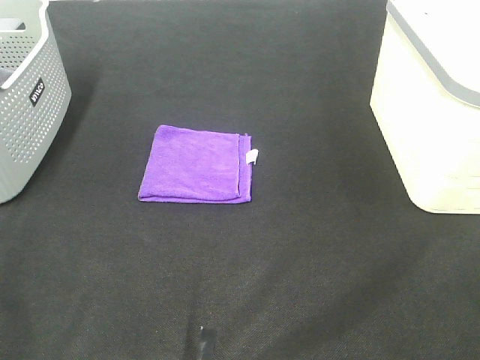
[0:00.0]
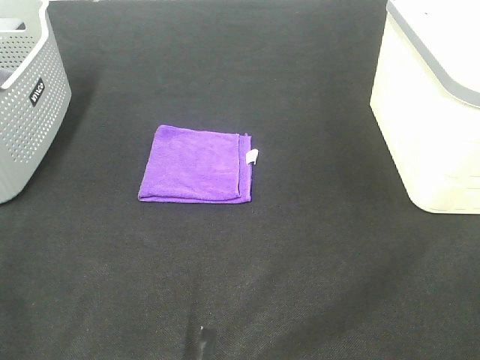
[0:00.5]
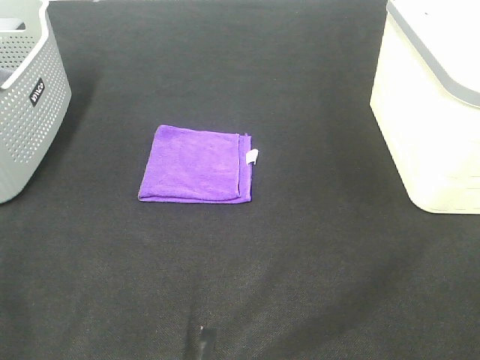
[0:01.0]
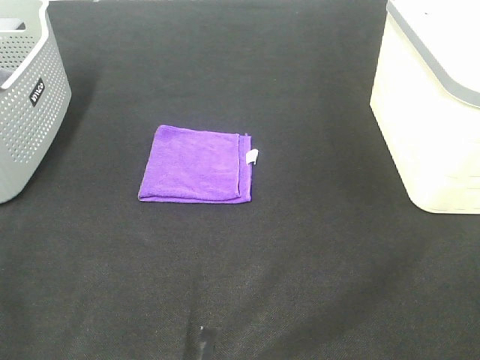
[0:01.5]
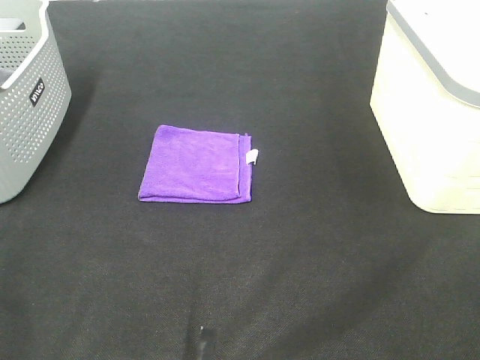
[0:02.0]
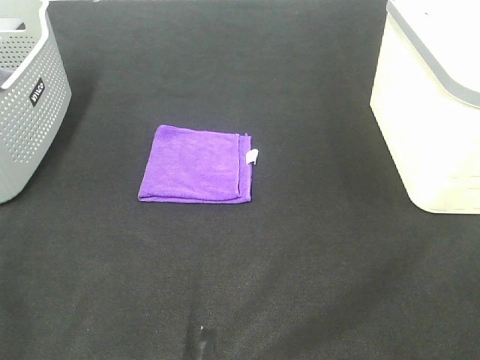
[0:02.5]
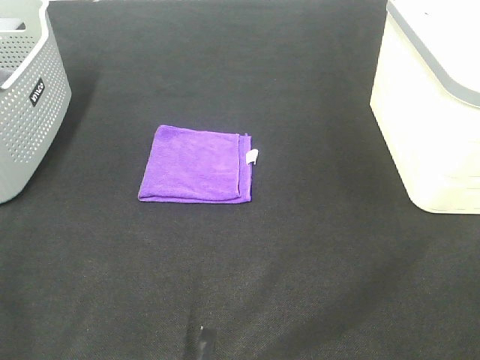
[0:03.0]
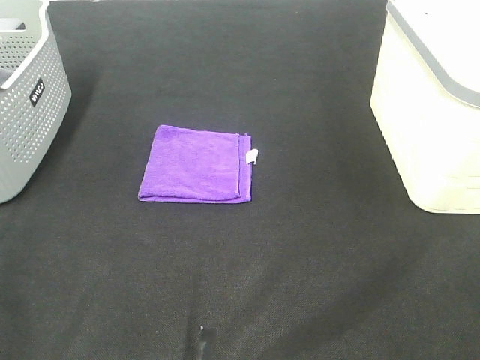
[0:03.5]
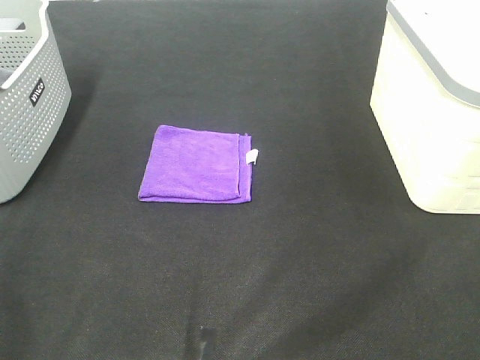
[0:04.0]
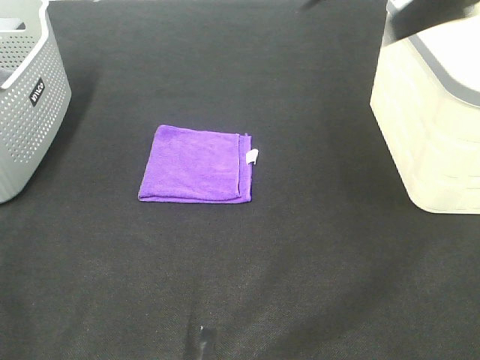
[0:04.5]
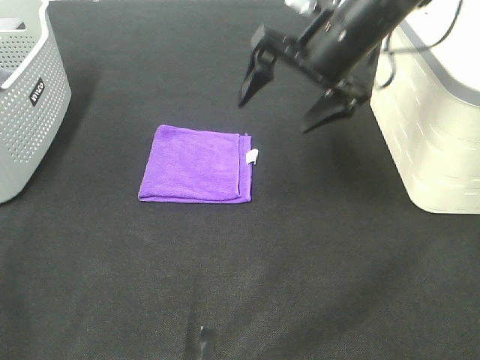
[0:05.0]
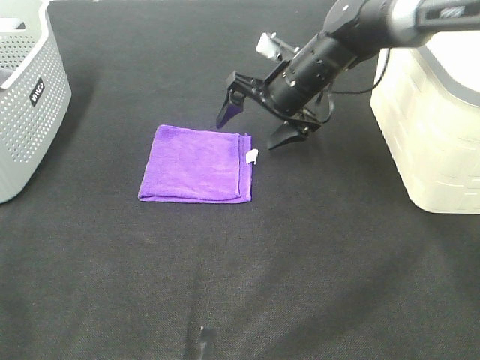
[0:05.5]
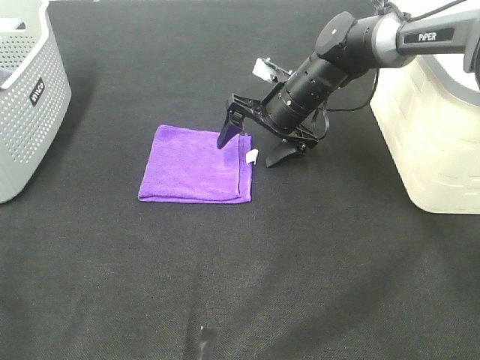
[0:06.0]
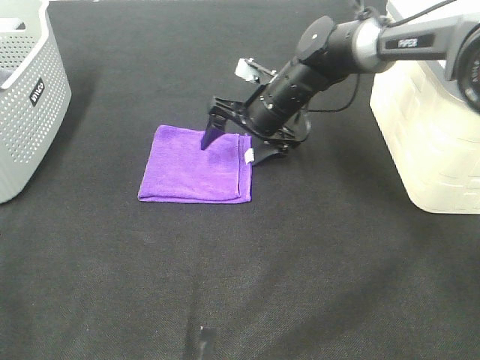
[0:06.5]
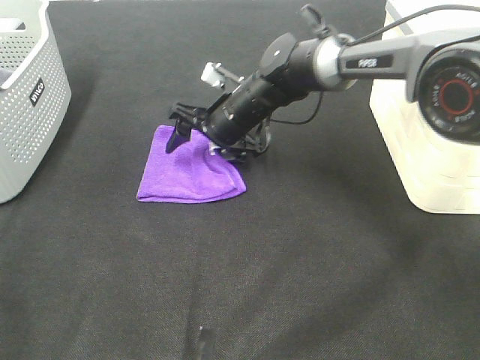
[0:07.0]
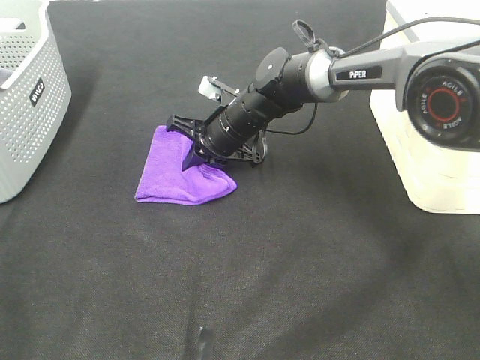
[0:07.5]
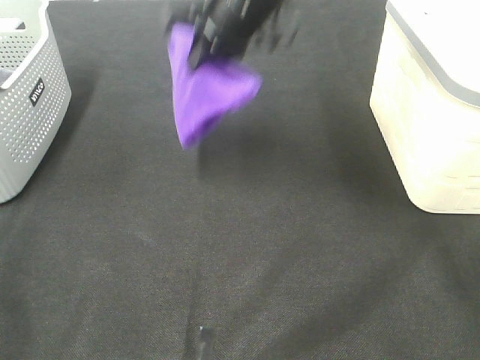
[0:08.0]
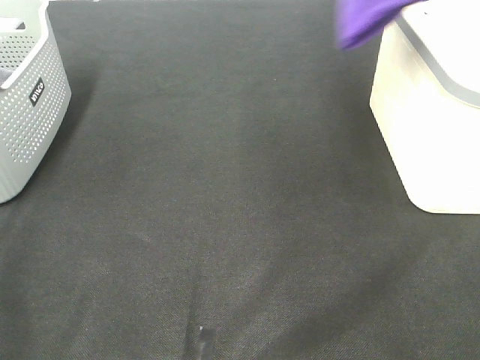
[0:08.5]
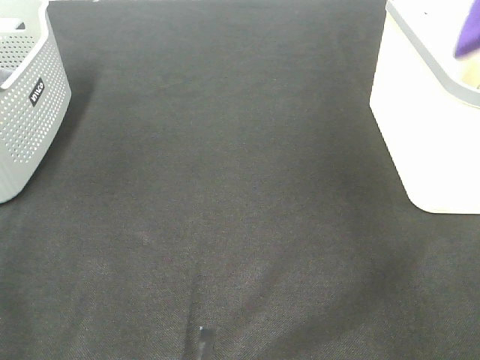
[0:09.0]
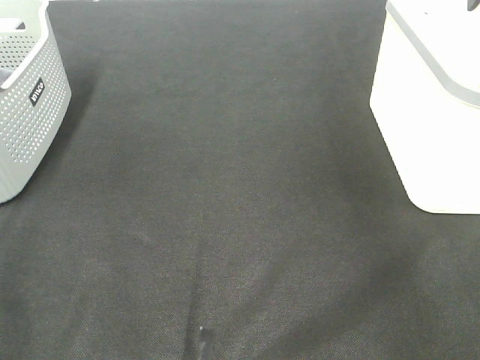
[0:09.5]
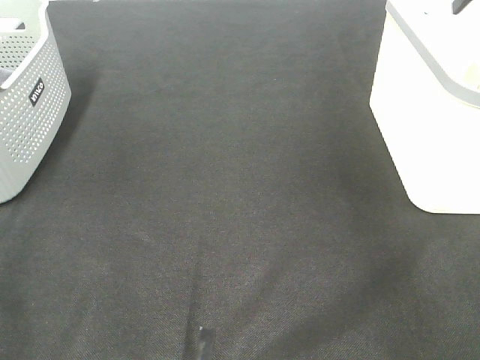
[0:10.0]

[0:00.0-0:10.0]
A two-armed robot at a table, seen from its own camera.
Step, 0.0 to 7.0 s: Right hand: grab the folded purple towel.
Step, 7.5 to 9.5 s: Right hand: place the purple towel in right basket.
0.0 to 2.0 s: Neither gripper changes place.
4.0 to 6.0 s: The right gripper is displaced forward, downward and to the left by approximately 50 cm.
6.0 to 8.0 s: The right gripper heads upward, covering some 20 cm, and closes up.
8.0 to 10.0 s: The right gripper is displaced to the right by about 30 cm, and opens up.

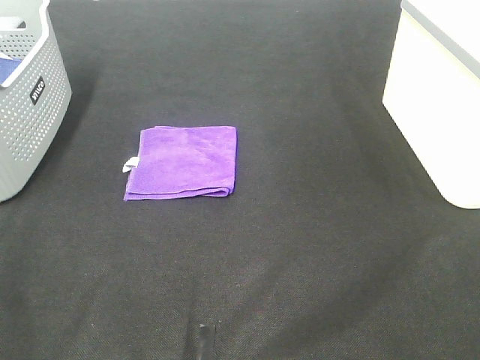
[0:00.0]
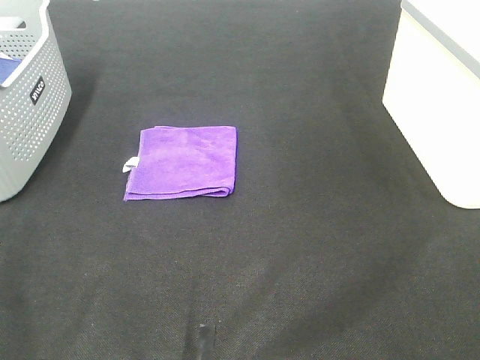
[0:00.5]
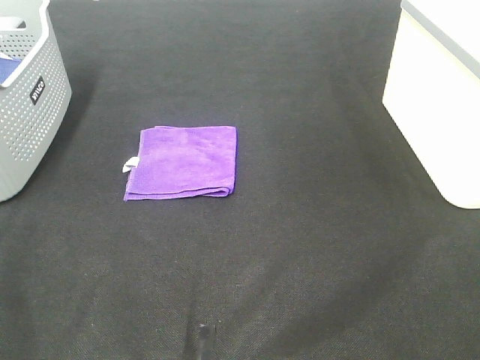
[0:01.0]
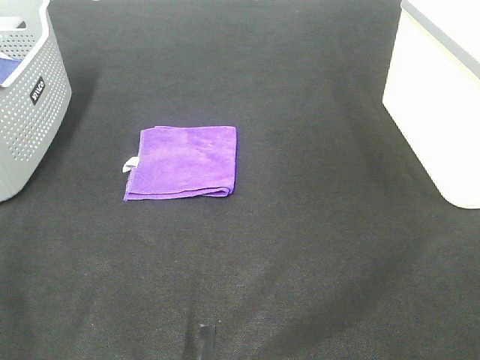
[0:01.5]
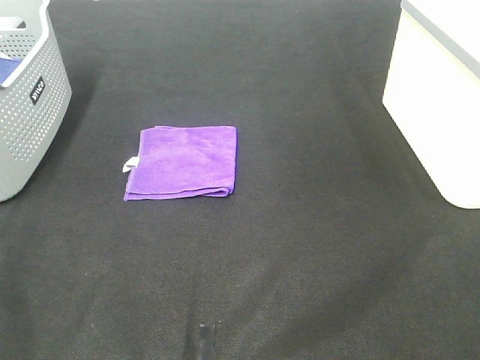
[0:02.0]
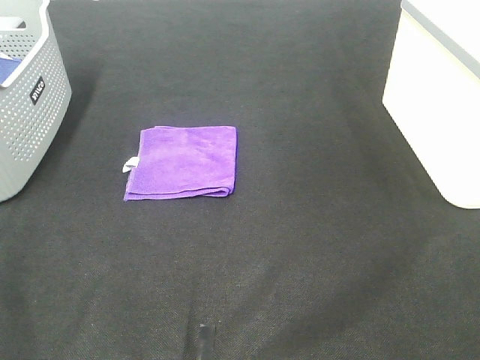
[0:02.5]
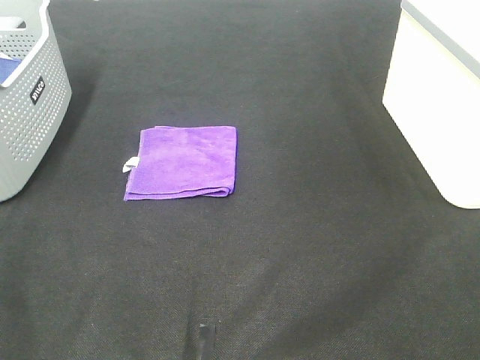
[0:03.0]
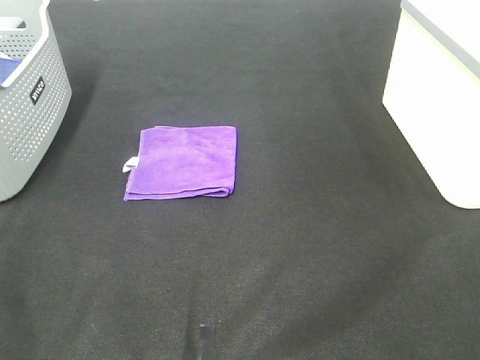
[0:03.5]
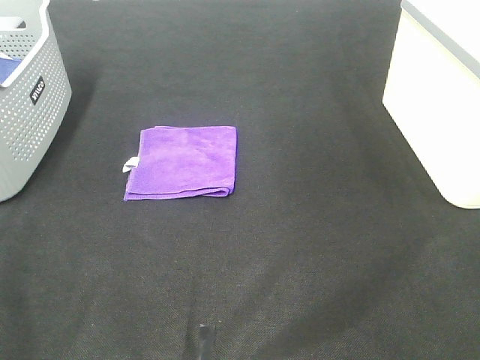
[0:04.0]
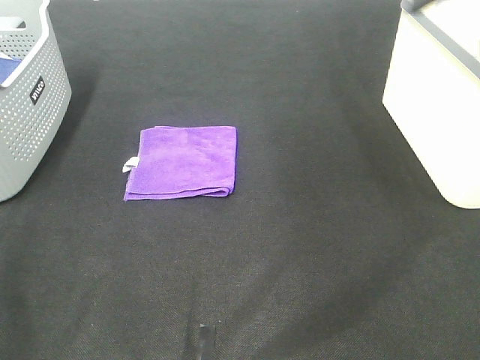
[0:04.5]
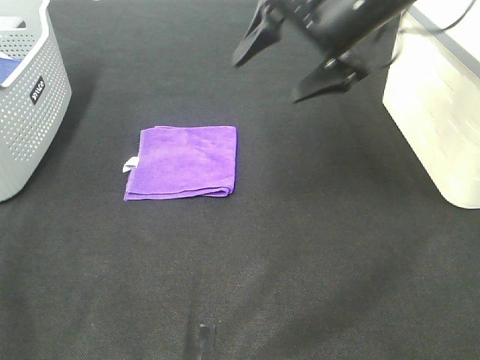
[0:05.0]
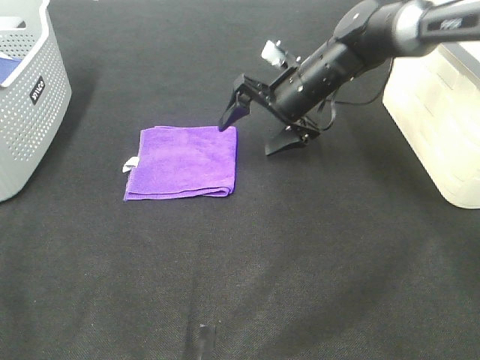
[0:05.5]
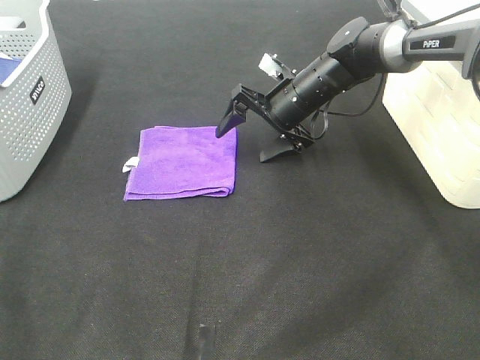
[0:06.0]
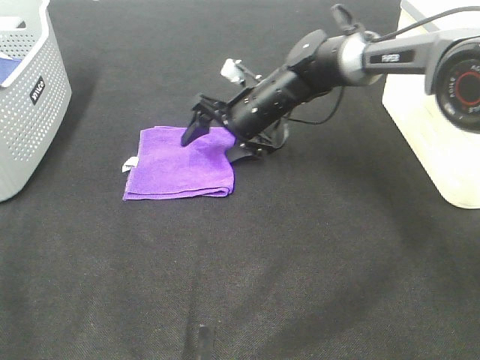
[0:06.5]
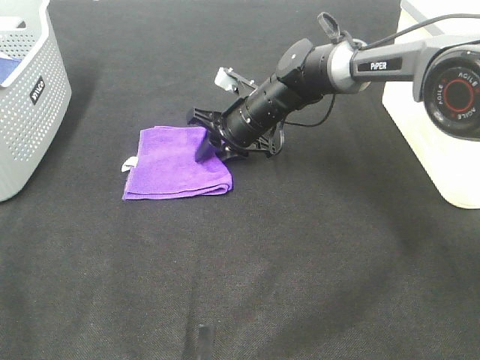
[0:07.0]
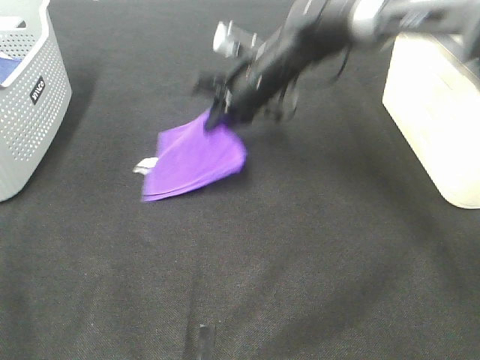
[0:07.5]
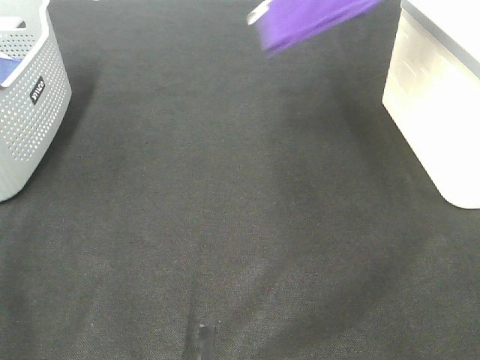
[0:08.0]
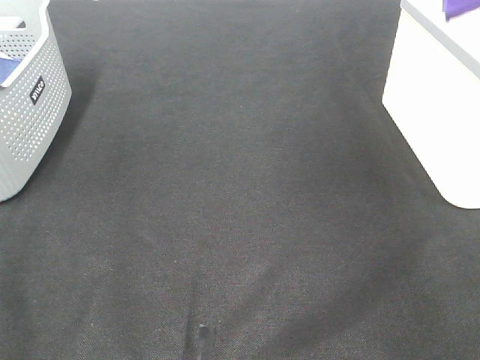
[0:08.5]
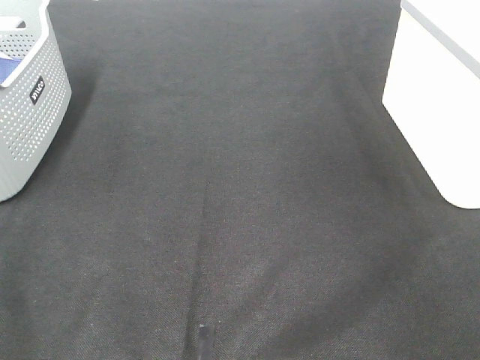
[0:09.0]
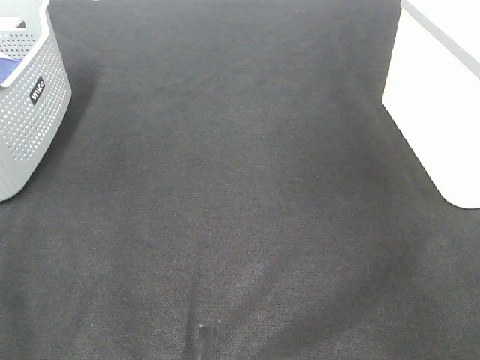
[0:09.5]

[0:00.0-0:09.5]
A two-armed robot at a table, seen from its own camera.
Step, 0.0 to 7.0 s: Right hand: grab the folded purple towel.
Step, 7.5 to 9.0 s: Right hand: place the purple towel in right basket.
0.0 to 2.0 s: Both grippers stay about where they are.
4.0 to 5.5 s: The right gripper moves forward, downward and to the left, some 40 cm.
5.5 to 7.5 s: The right gripper is displaced upward by roughly 5 cm, and closes up.
7.5 to 9.5 s: The right gripper is displaced to the right and upward by about 35 cm, and opens.

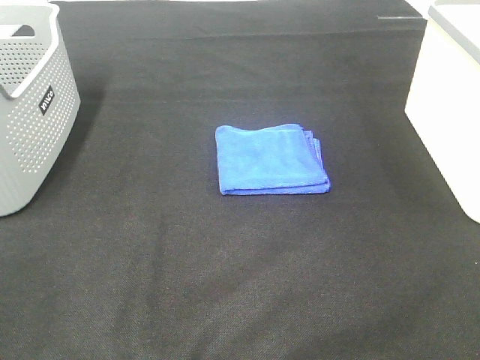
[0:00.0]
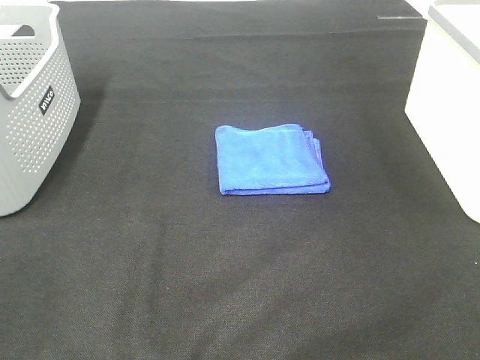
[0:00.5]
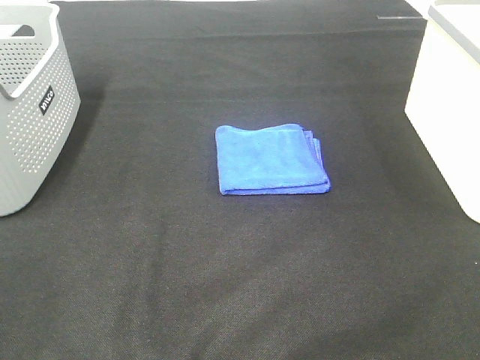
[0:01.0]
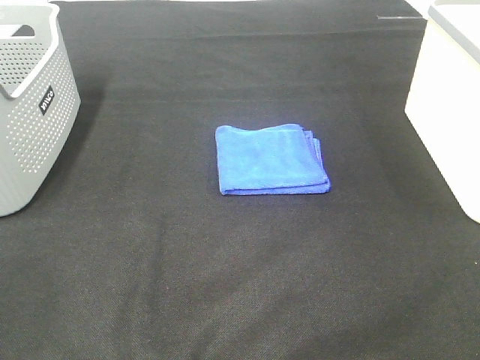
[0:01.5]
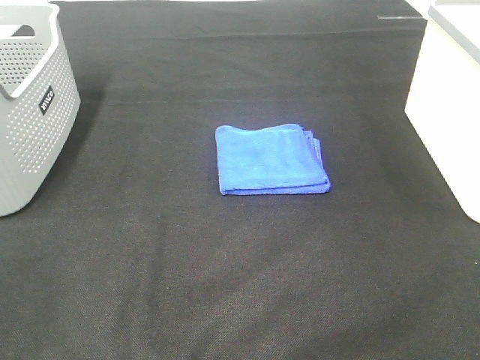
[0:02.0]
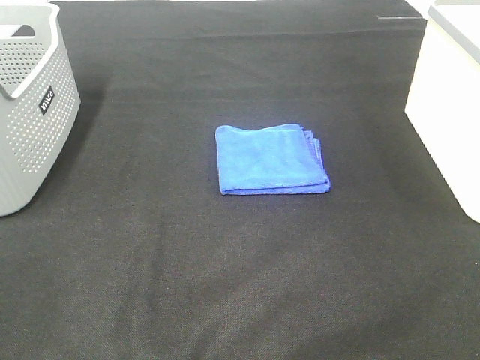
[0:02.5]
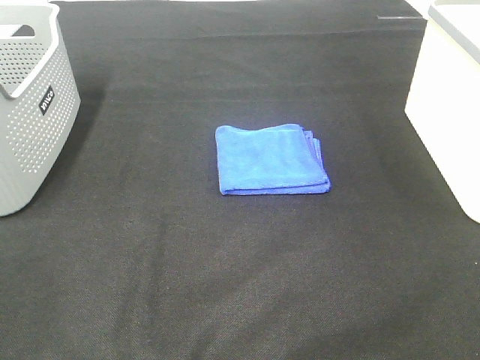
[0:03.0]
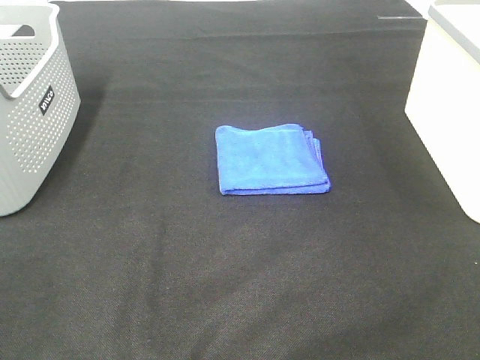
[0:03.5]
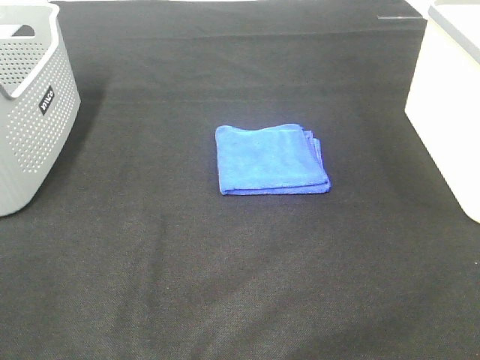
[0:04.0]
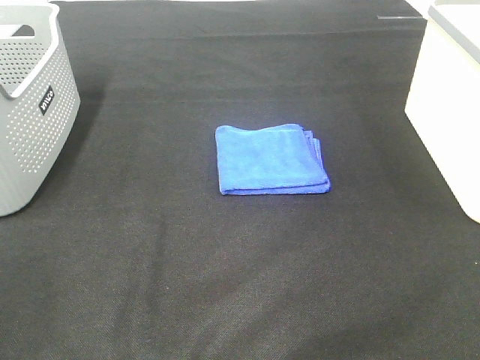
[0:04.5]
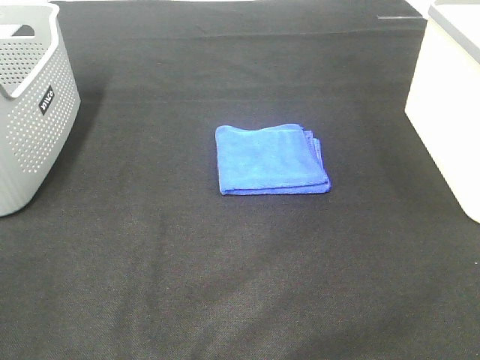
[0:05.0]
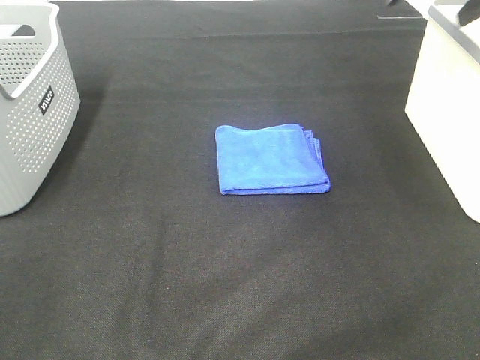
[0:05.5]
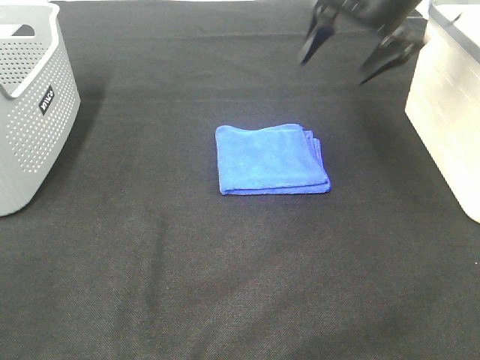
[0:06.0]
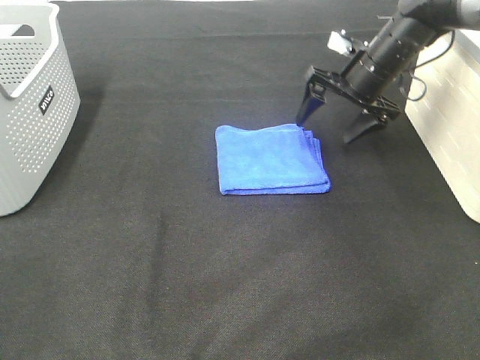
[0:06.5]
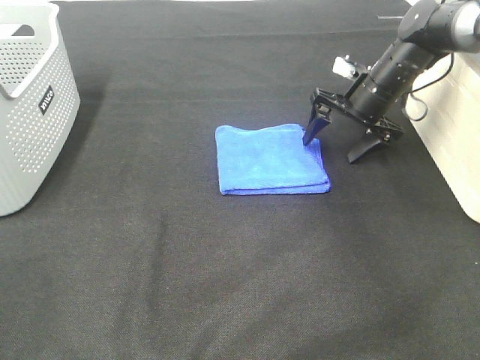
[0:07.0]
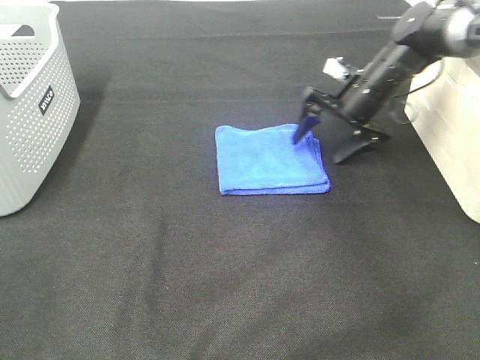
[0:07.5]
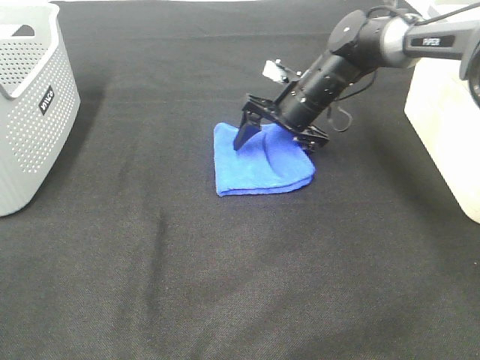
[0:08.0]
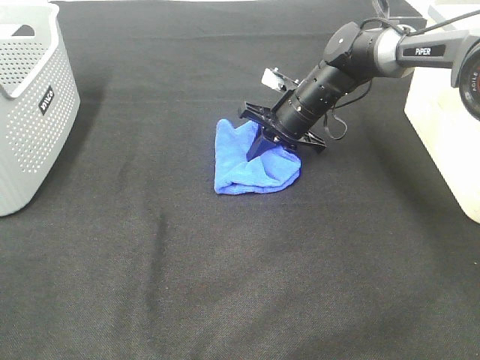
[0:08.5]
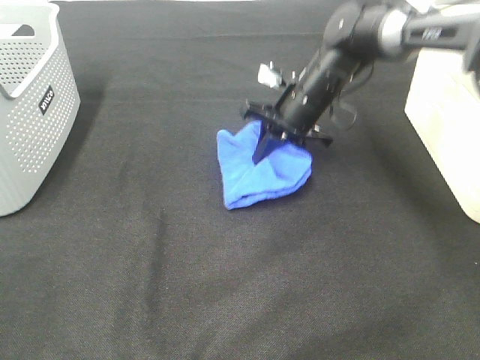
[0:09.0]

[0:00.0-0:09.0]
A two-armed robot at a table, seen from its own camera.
Step, 0.0 to 8.5 s: Right hand: grab the folded blue towel.
0.0 to 2.0 s: Both grippers stay put.
4.5 to 7.0 s: The right gripper goes roughly 40 cm forward and downward.
7.0 to 9.0 s: The right gripper travels to the left by roughly 10 cm, and closes.
